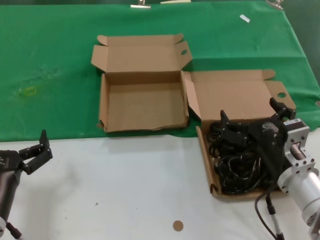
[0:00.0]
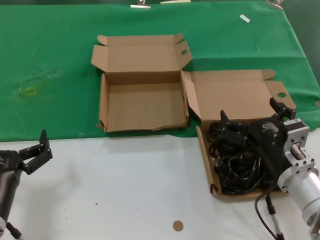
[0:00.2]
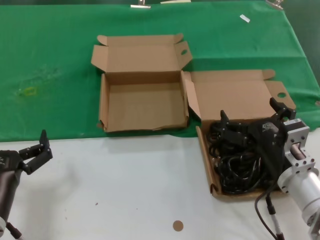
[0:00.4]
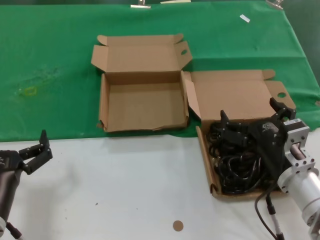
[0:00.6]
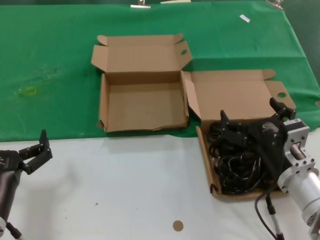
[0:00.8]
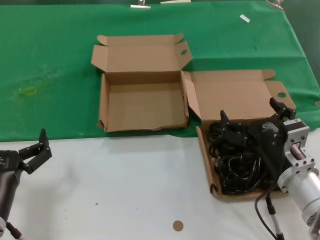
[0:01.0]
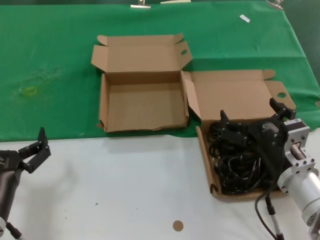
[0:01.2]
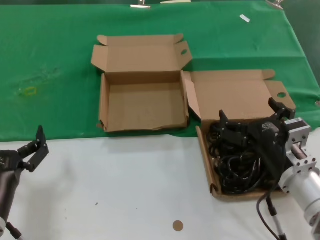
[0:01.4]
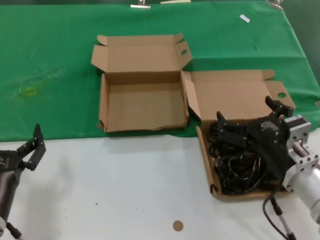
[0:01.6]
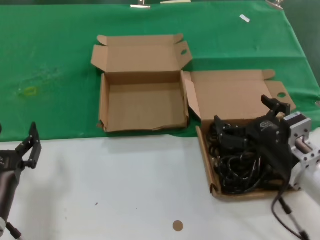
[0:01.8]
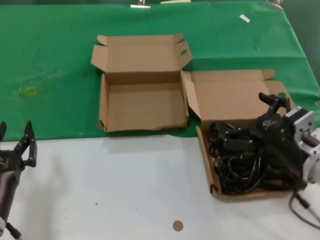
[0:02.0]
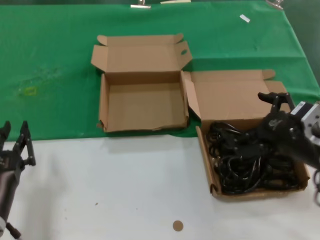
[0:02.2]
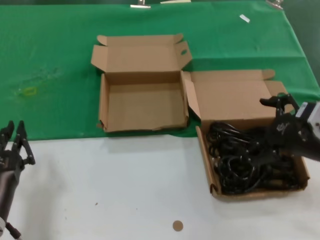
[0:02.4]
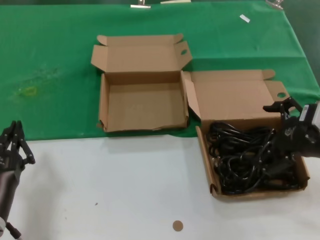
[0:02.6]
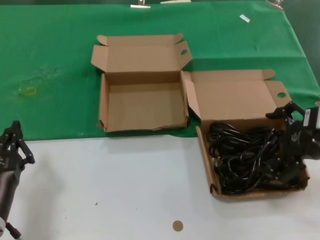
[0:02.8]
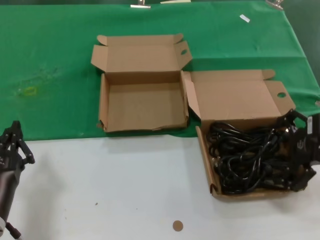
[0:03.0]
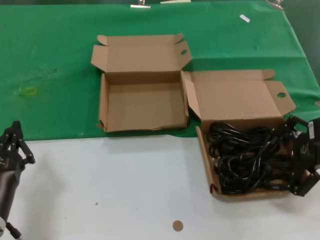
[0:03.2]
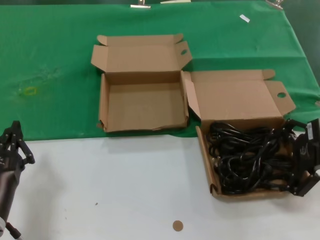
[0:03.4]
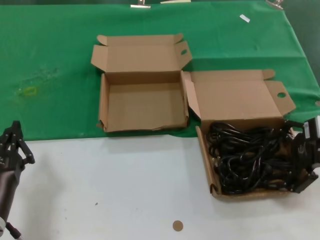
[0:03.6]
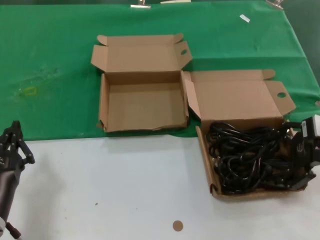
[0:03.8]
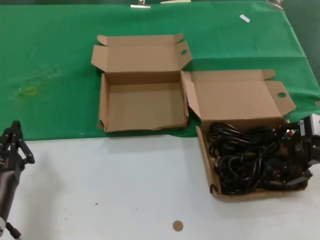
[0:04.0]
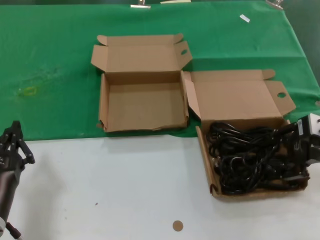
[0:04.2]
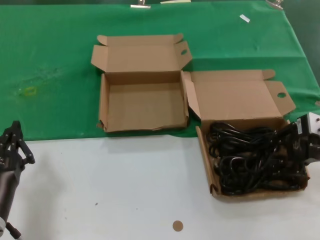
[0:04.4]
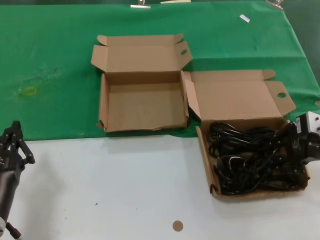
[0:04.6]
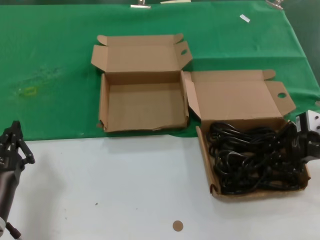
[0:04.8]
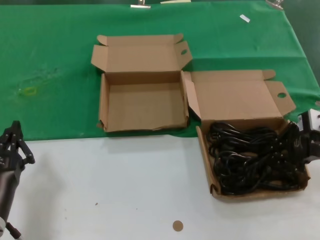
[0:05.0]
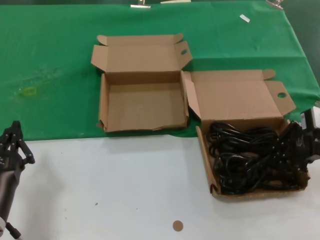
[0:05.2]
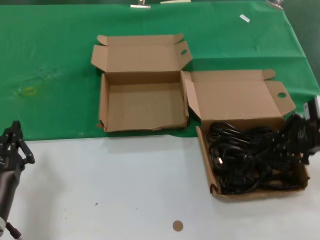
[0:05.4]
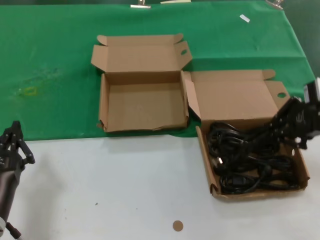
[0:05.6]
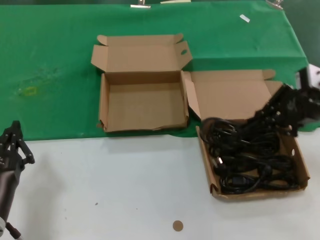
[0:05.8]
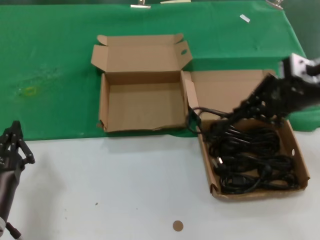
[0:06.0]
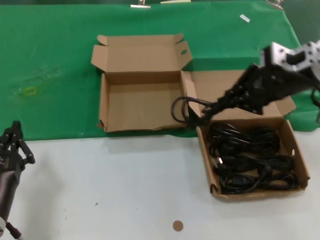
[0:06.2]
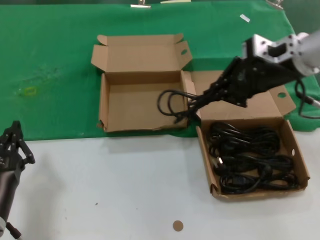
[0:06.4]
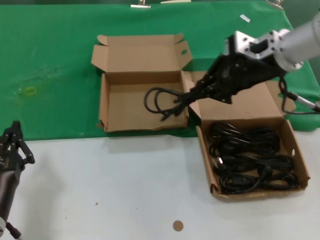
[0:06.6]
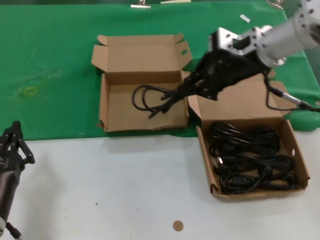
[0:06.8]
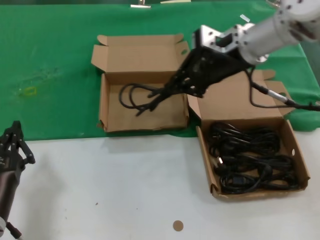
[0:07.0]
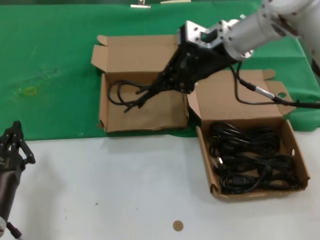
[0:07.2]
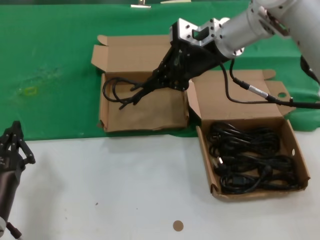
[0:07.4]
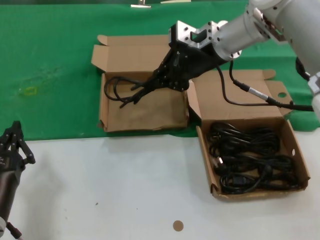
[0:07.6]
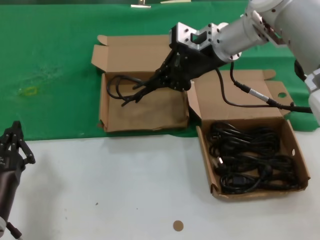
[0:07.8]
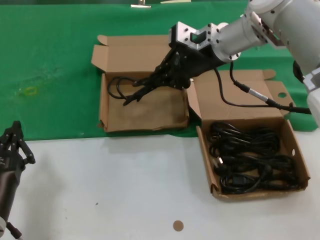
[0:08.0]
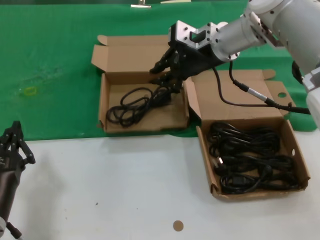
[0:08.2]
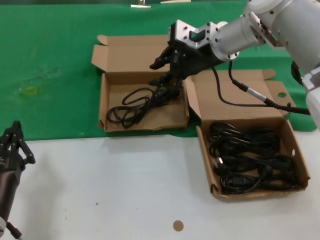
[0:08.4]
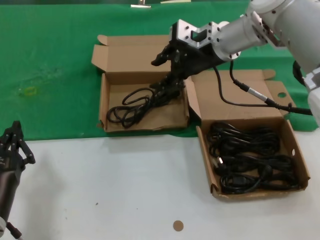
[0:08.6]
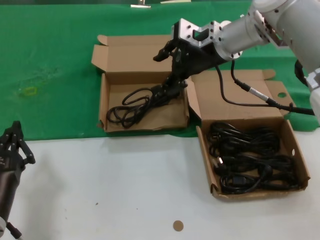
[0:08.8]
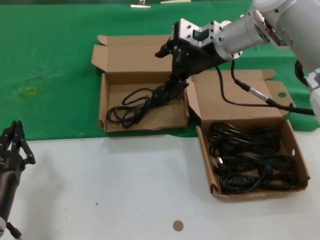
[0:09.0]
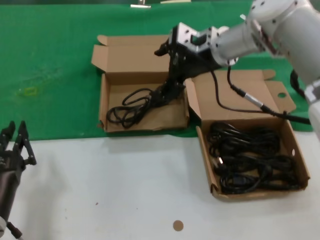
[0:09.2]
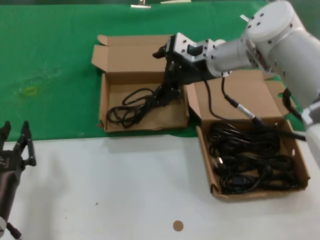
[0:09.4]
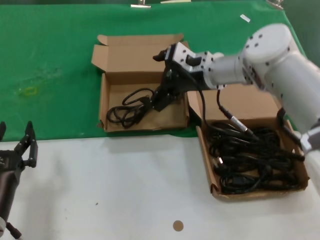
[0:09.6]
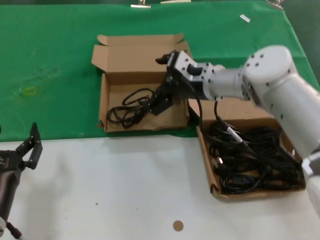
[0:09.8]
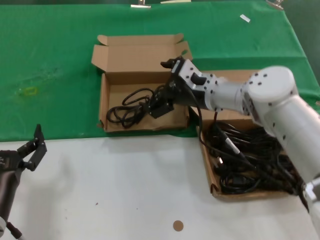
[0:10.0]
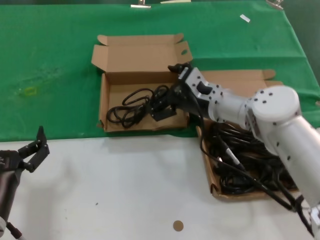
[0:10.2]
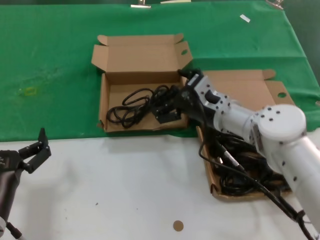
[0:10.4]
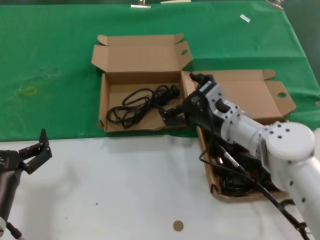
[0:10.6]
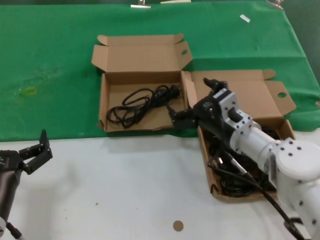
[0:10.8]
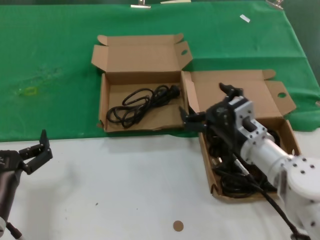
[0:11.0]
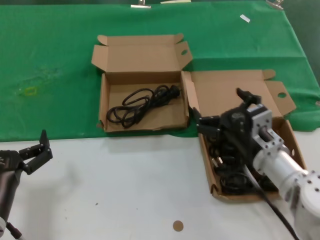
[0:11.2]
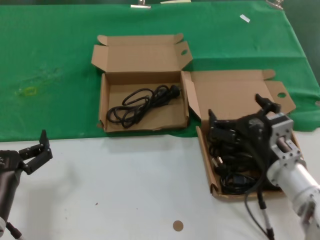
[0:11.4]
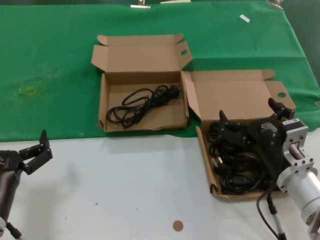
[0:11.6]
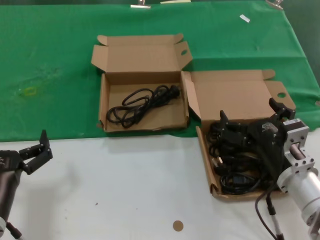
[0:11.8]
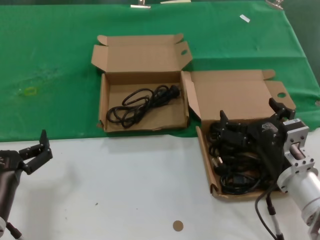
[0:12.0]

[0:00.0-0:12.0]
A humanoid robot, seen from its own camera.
Task of the whole recording: take the parts from the box containing them and put them into an empty box.
Step, 0:00.0 to 0:04.8: Grasp the data cable.
Step, 0:05.0 to 0:08.2: Place the data cable in the another box.
0:00.0 to 0:01.6: The hands stay close to where they were, moving slightly.
0:01.6 to 0:03.0: The right hand goes some 20 cm upward and to the right.
0:03.0 to 0:04.4: The right hand moves forward, some 5 cm.
0:04.4 to 0:06.0: The right hand travels upward by about 10 cm.
0:06.0 to 0:07.6: The right hand heads to the left and forward, covering some 20 cm.
0:07.6 to 0:09.0: Both hands stay about where they are.
0:09.0 to 0:10.4: The right hand goes approximately 20 cm downward and backward.
0:10.4 to 0:12.0: The right hand shifts some 15 cm backward.

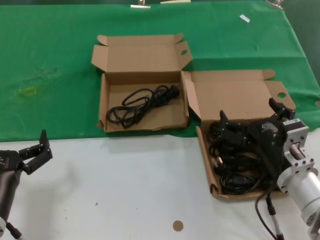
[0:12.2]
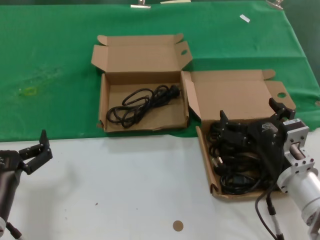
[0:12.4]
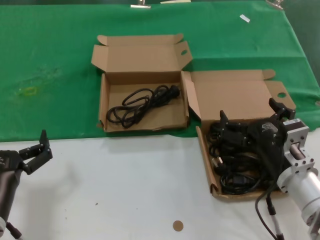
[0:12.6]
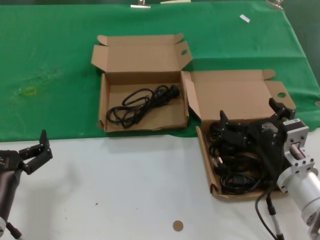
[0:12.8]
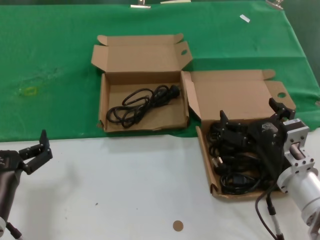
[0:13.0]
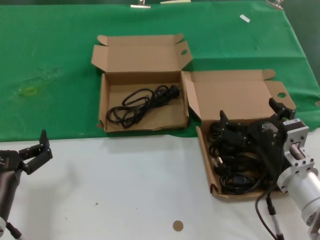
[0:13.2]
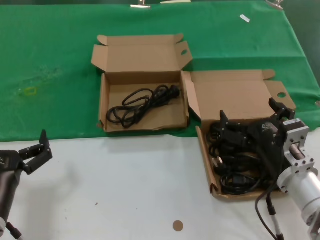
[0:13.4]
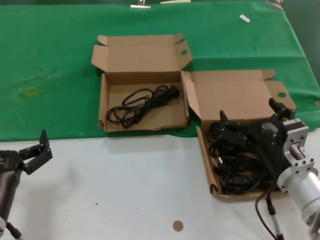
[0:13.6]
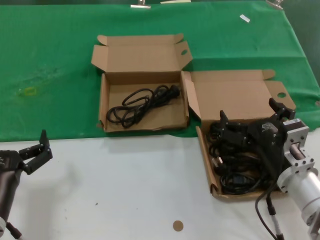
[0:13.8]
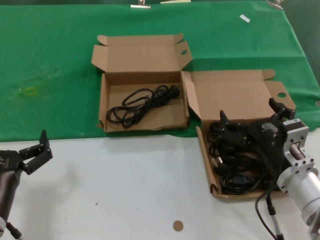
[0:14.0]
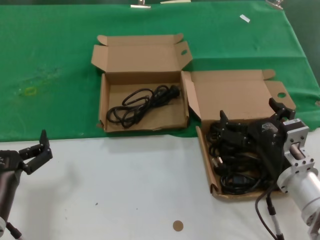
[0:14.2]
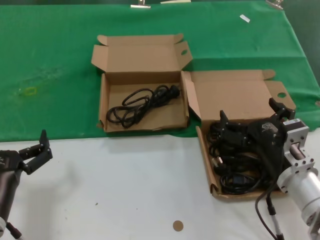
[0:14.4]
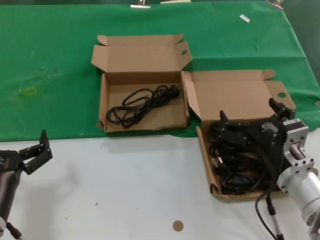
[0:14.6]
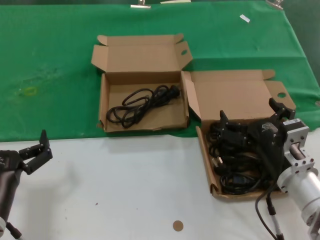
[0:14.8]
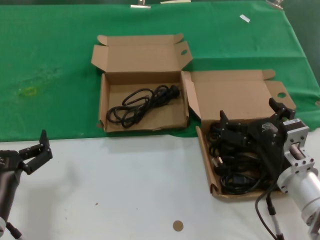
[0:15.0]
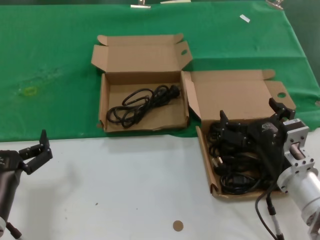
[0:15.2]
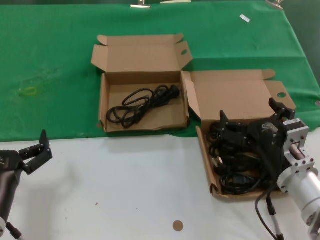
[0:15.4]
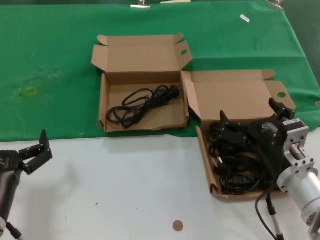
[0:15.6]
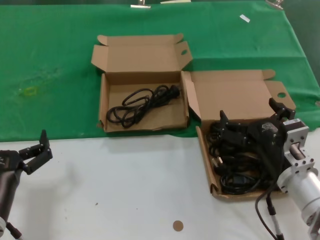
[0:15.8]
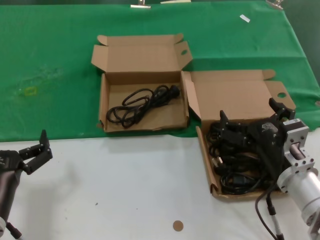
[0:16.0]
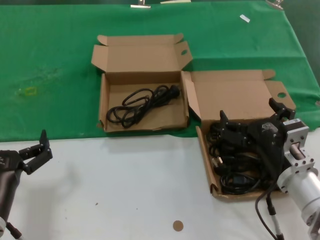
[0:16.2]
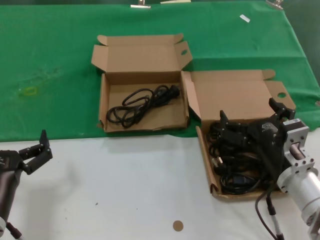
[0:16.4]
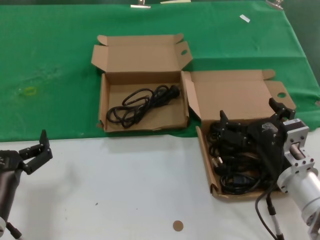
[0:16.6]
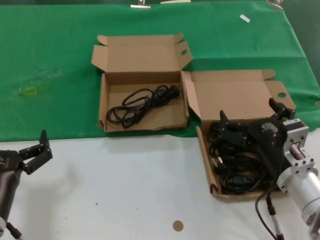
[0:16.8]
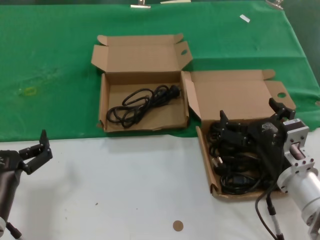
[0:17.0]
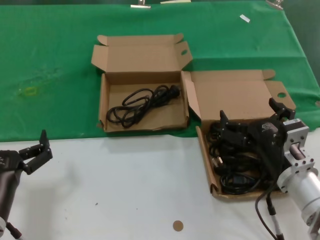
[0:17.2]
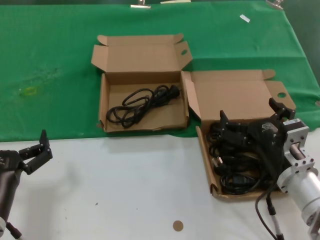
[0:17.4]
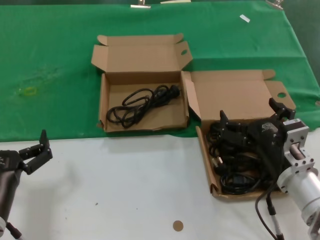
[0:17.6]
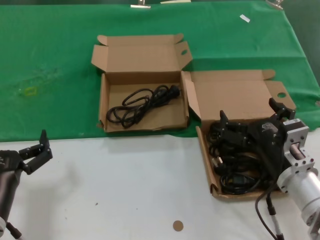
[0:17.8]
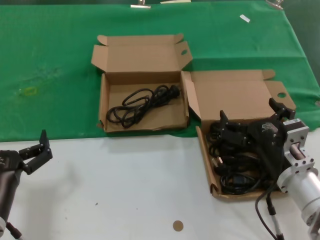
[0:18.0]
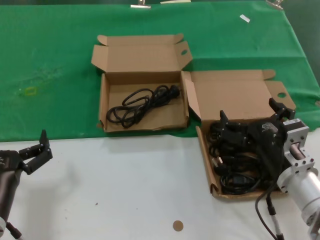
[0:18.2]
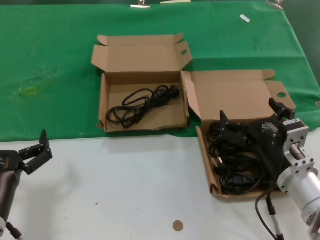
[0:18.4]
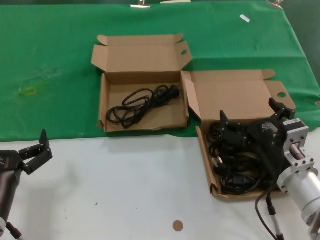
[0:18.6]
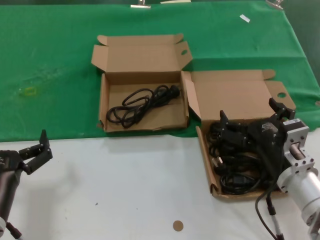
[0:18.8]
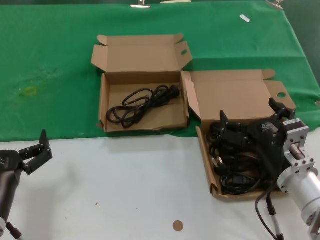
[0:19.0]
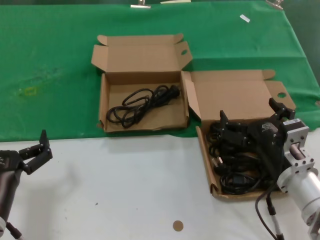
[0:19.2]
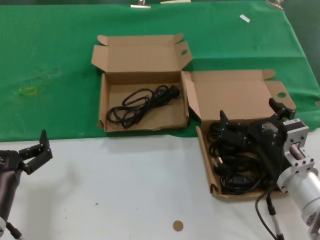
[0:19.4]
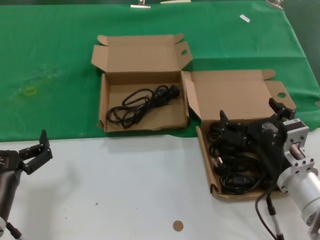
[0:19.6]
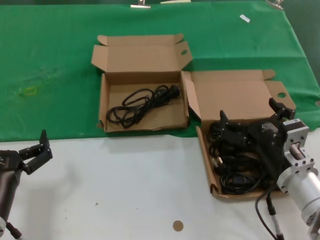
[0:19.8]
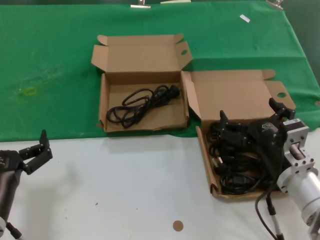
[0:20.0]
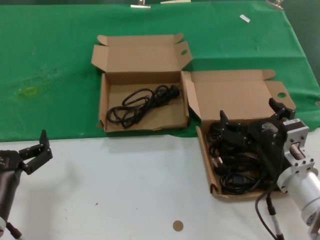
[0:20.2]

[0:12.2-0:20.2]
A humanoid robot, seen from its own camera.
Task of the whole recording: take the parts from the box containing them and put them into an empty box.
0:12.2 to 0:20.2: The two hands keep their place.
